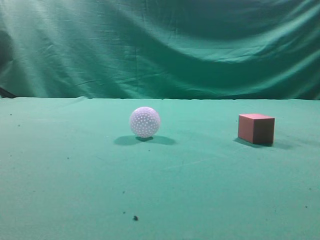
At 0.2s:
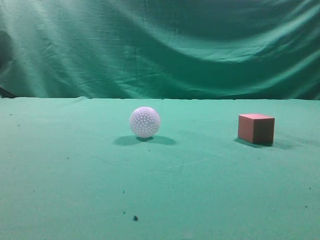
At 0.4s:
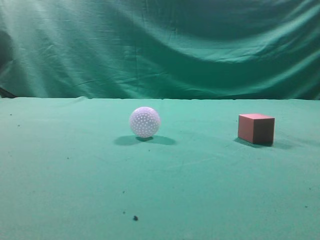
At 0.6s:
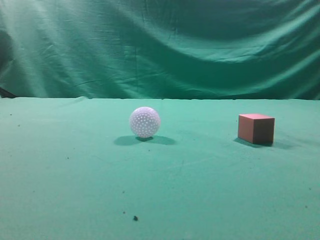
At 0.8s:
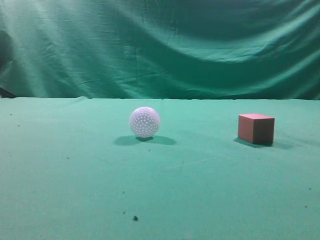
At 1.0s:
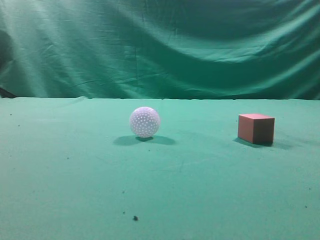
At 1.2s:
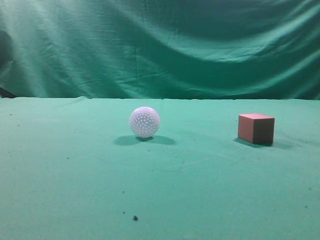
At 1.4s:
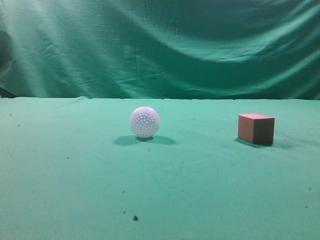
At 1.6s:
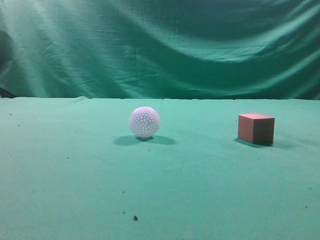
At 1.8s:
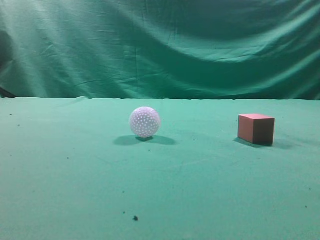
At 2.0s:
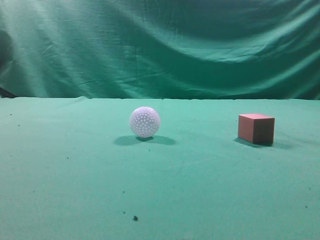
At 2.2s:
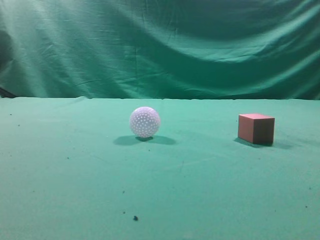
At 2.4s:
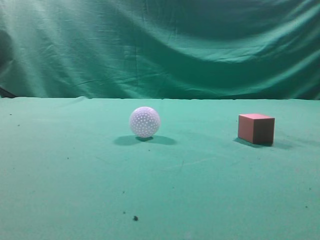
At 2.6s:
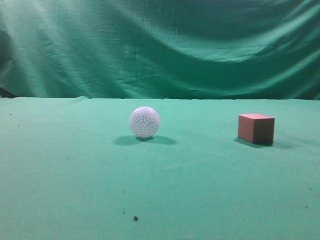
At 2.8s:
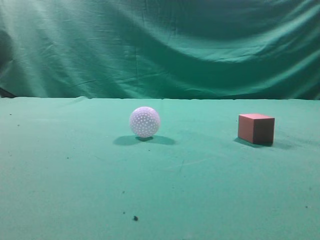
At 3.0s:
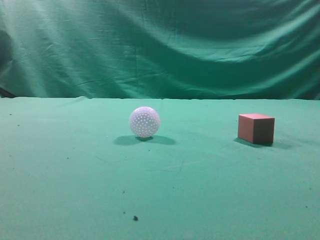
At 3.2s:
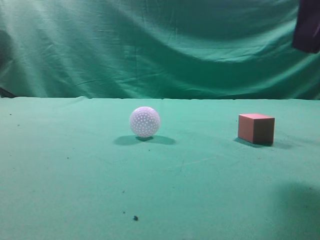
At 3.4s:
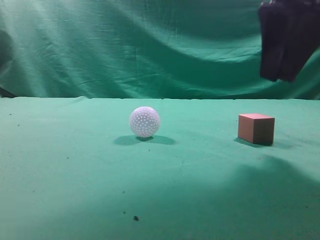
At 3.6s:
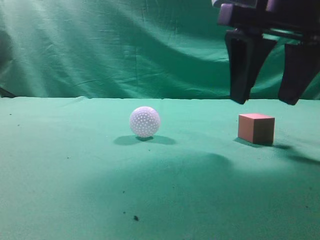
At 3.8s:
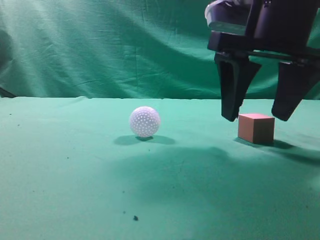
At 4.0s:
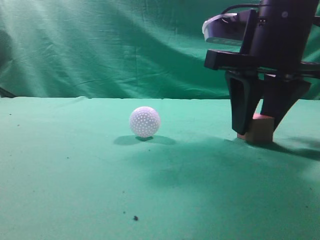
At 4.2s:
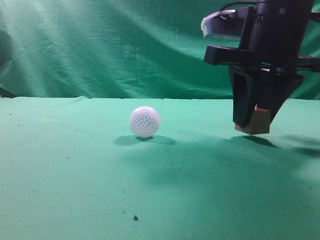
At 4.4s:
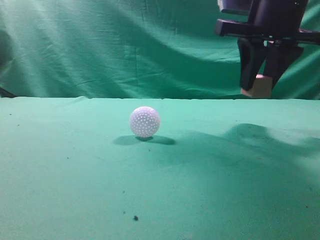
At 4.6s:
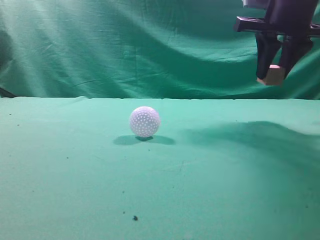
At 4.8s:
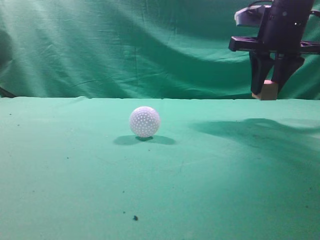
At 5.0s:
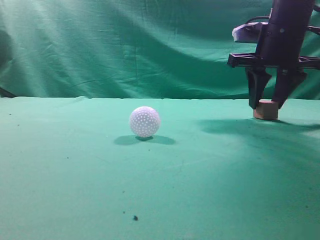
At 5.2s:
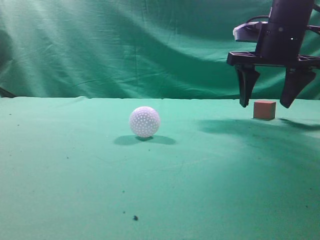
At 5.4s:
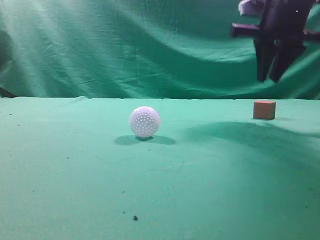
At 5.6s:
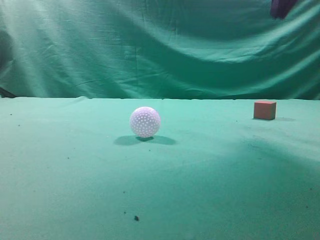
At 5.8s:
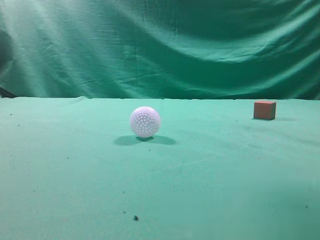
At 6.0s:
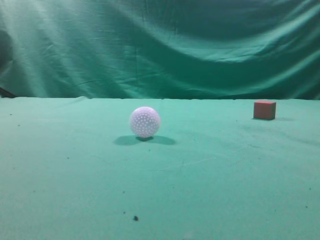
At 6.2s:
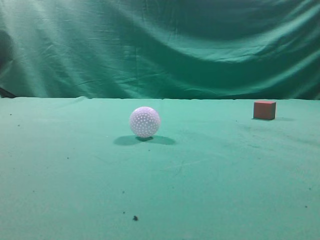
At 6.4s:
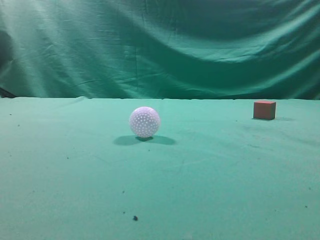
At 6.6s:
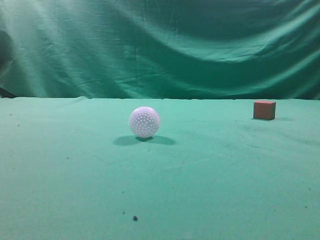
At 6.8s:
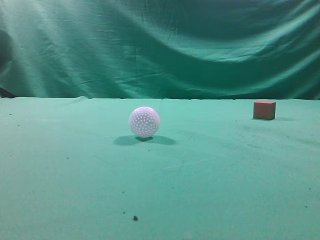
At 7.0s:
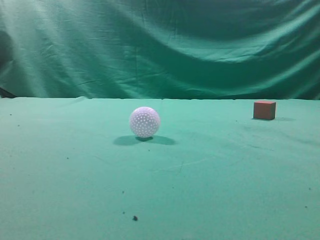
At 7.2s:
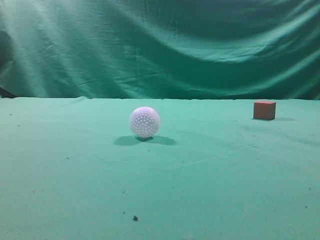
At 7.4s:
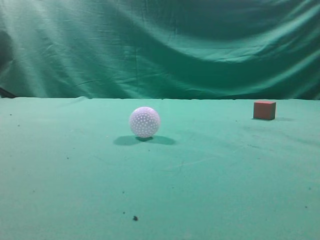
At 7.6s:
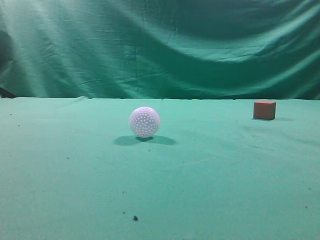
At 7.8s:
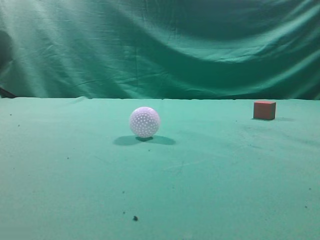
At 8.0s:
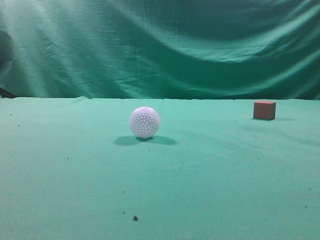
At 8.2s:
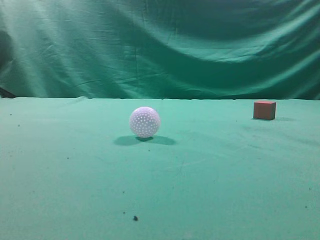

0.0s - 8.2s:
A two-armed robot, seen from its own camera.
Task of the whole recording: pick up the cube block and place it in another position on the table.
Step, 0.0s - 4.2s: Pick up the small cube.
Step, 4.4s - 5.2s: Place the small cube on the ahead of the table.
1.6s - 3.2s: The right gripper moves forward and to the left, some 25 cm.
3.2s - 5.0s: The right gripper shifts approximately 20 cm forward, and opens up.
5.0s - 6.6s: The right gripper is displaced backward and upward by some 35 cm, and closes.
